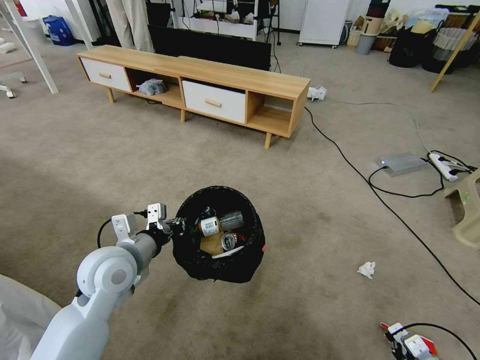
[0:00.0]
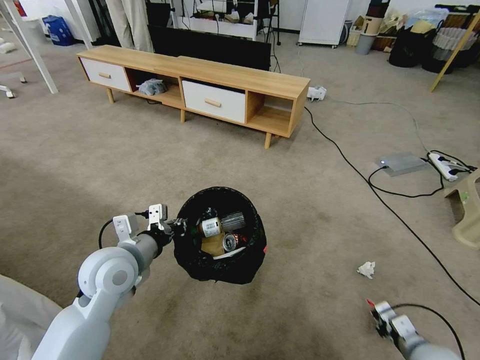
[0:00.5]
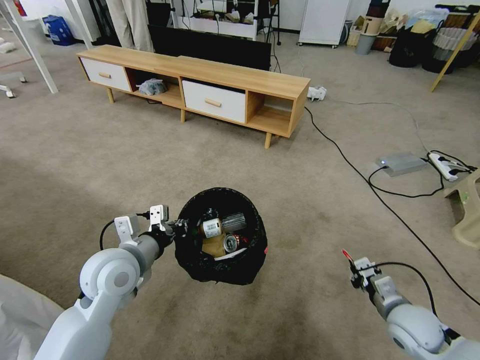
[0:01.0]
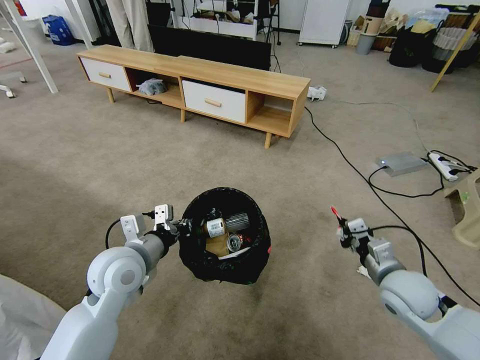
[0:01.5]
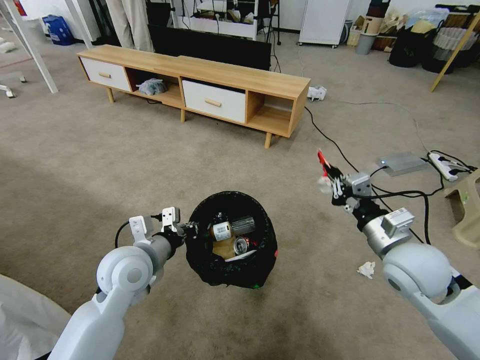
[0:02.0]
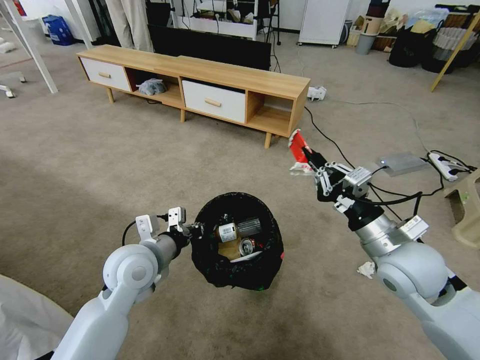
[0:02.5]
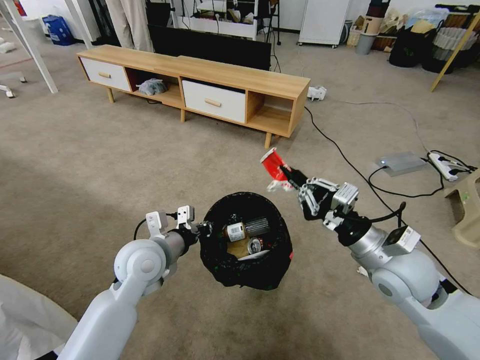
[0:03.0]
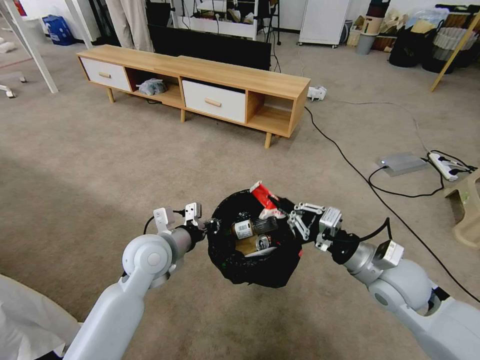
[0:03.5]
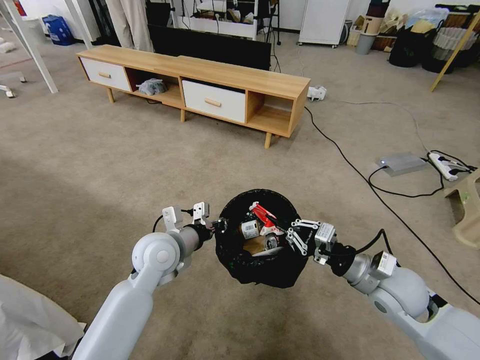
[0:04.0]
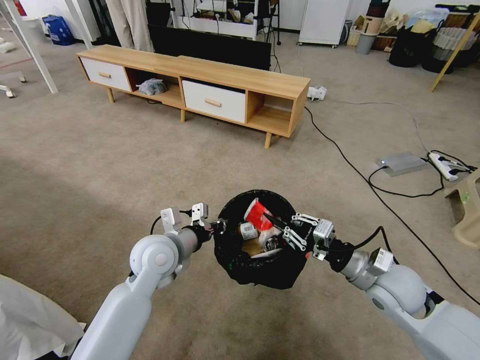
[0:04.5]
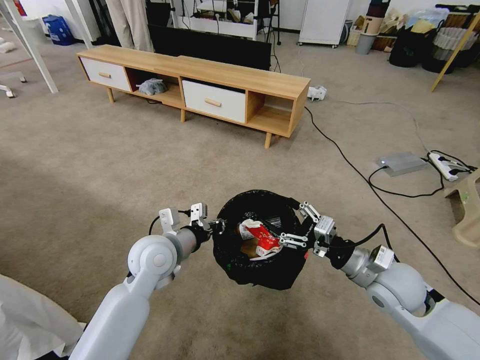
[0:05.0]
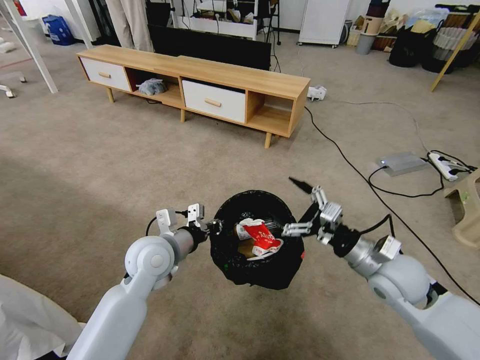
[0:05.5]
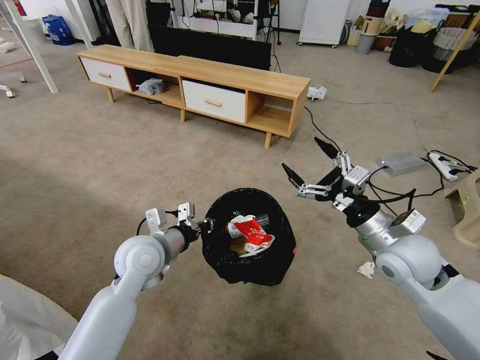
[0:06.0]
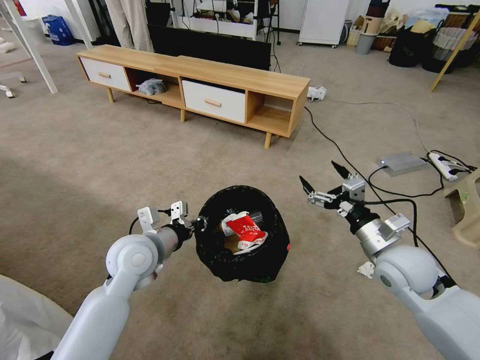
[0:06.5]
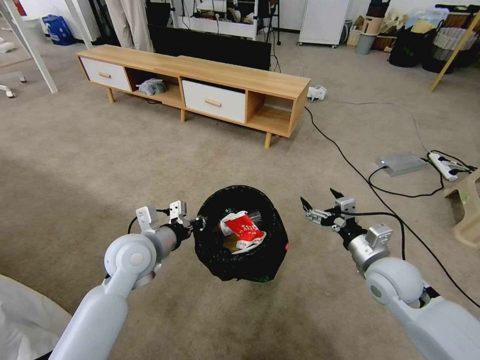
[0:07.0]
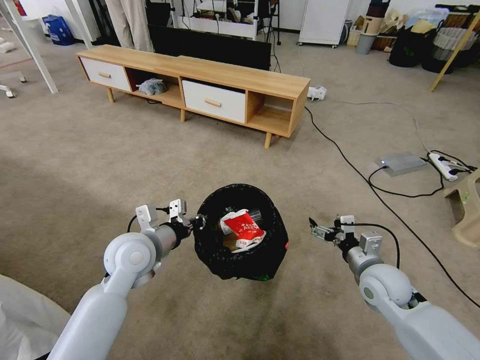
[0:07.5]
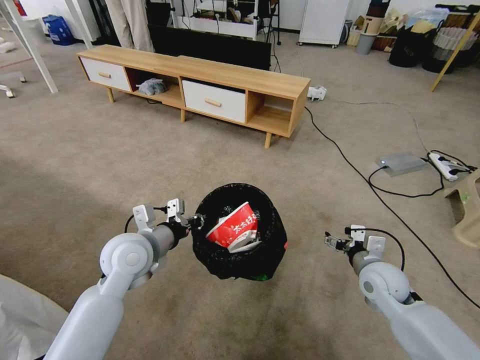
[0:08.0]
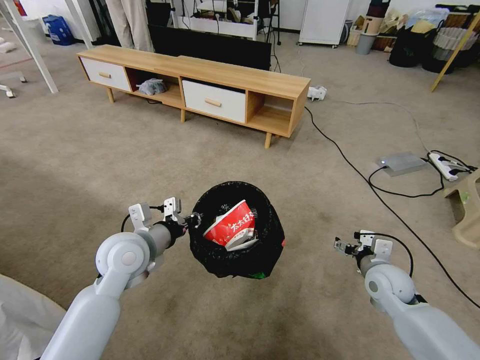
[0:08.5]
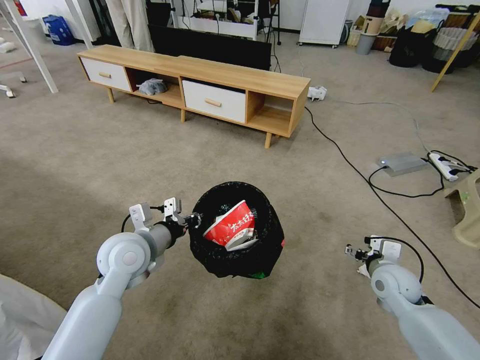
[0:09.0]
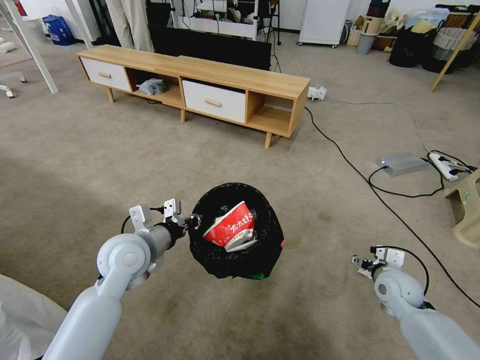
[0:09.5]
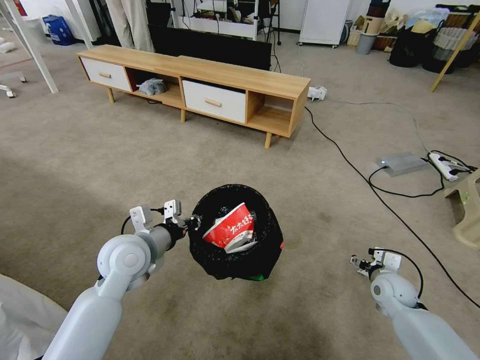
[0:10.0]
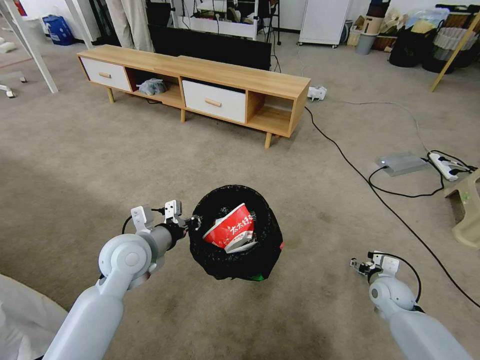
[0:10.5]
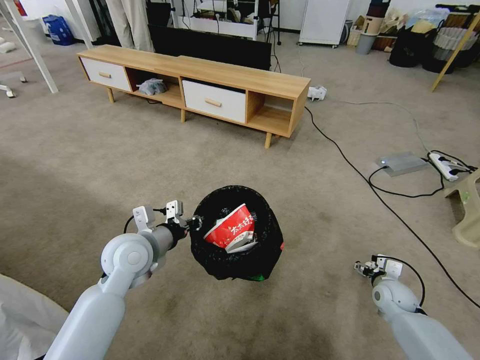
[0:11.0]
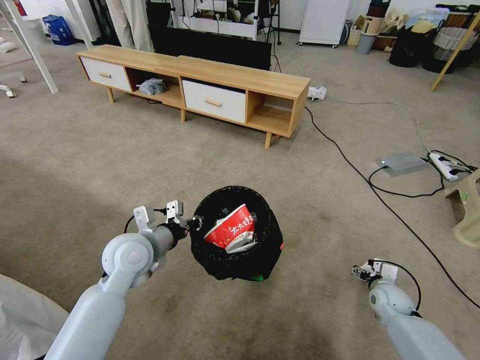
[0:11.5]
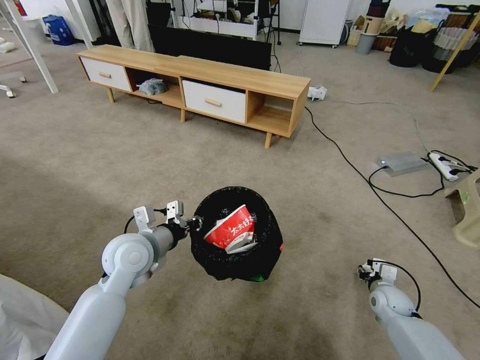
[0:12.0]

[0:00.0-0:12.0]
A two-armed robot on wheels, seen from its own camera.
Task of the whole recording: Pick up the trash bin and place the garbage on the floor into it.
0:00.0 to 0:02.0: The right gripper shifts approximately 35 cm upward, forward and to the left.
0:02.0 to 0:04.0: The right gripper travels downward by roughly 5 cm. The left gripper ends up approximately 5 cm from where it was.
0:04.0 to 0:06.0: The right gripper goes some 5 cm upward, and opens its fingers.
0:06.0 to 0:08.0: The right gripper heads downward, covering roughly 15 cm.
0:08.0 to 0:10.0: The right gripper is displaced downward and to the right by approximately 10 cm.
0:10.0 to 0:12.0: The right gripper travels downward by some 5 cm, and closes its fingers.

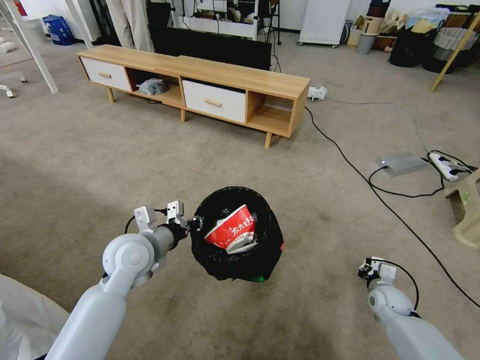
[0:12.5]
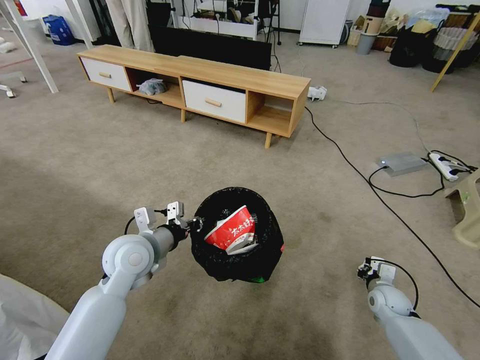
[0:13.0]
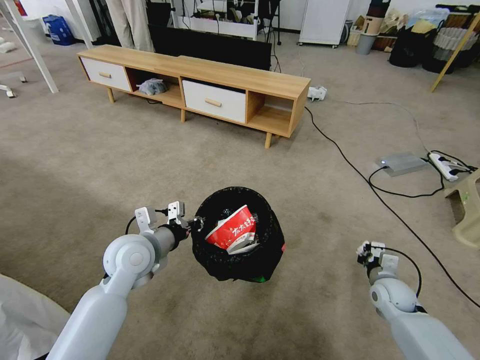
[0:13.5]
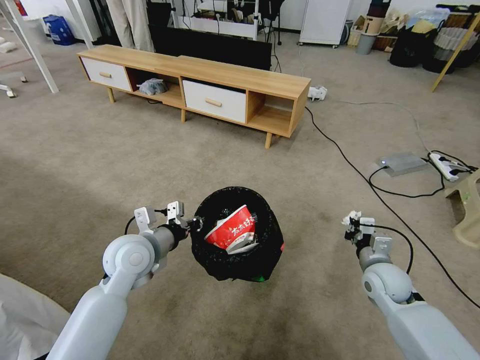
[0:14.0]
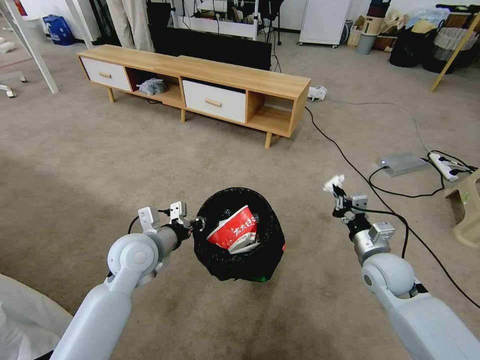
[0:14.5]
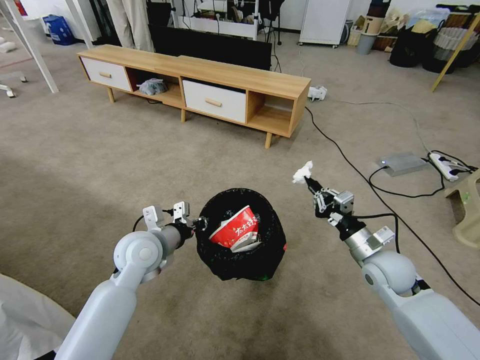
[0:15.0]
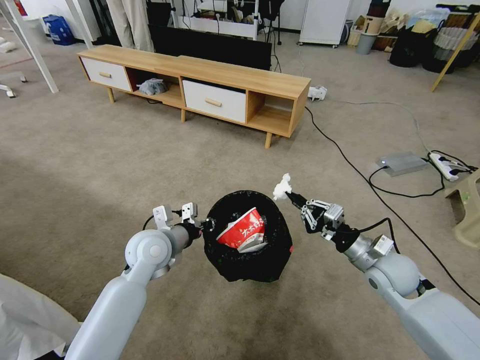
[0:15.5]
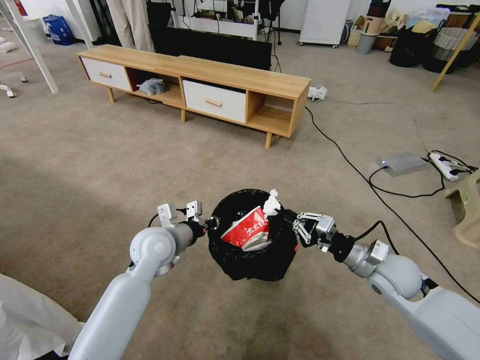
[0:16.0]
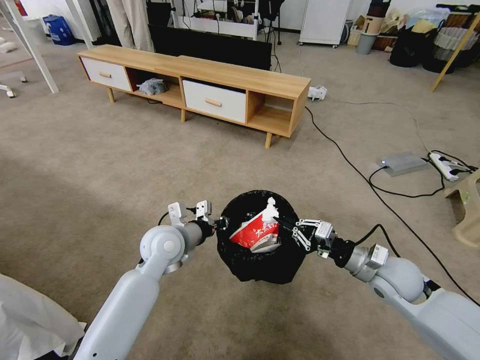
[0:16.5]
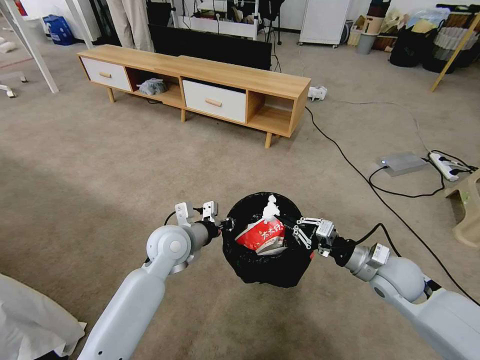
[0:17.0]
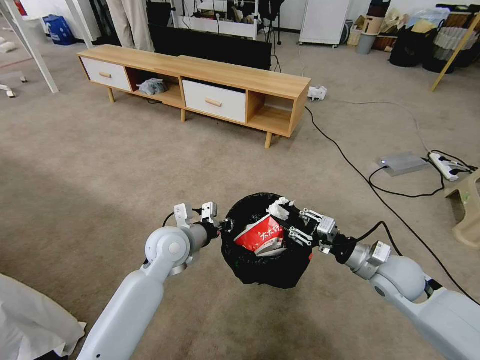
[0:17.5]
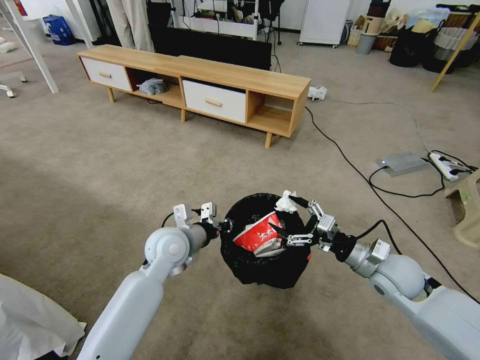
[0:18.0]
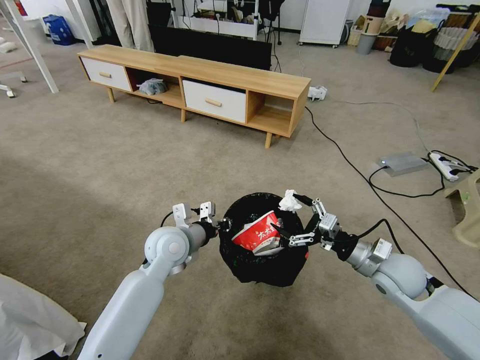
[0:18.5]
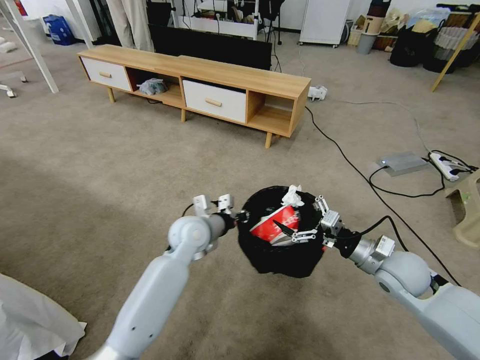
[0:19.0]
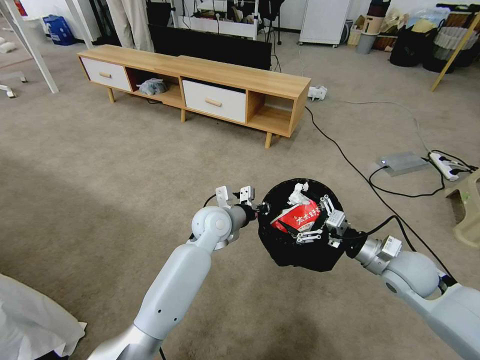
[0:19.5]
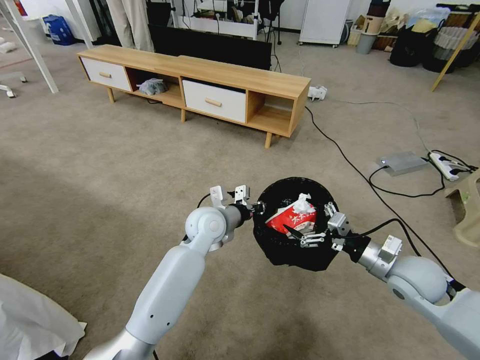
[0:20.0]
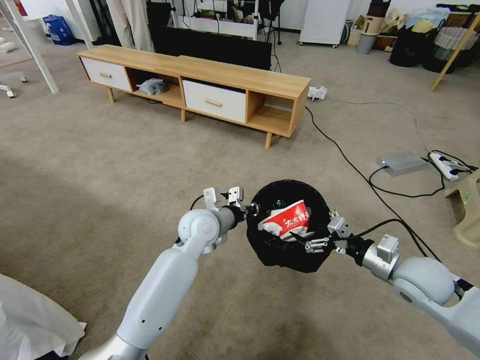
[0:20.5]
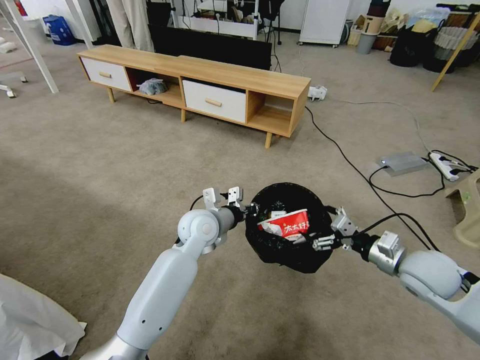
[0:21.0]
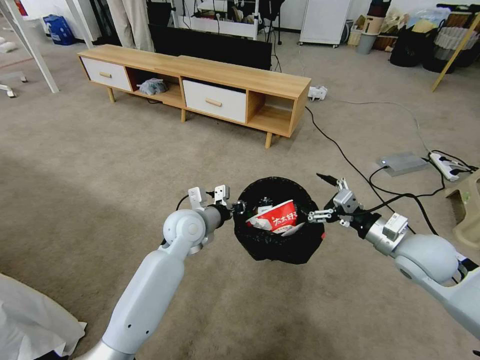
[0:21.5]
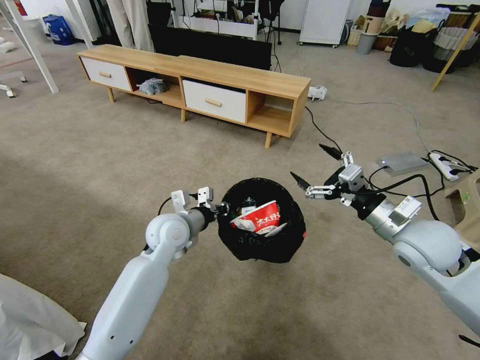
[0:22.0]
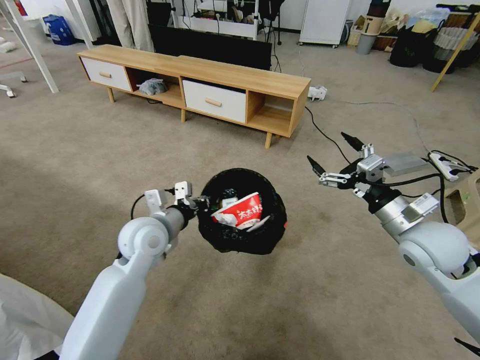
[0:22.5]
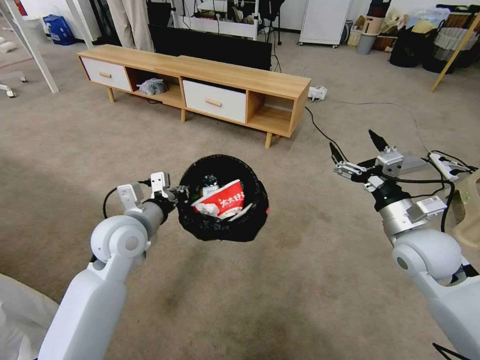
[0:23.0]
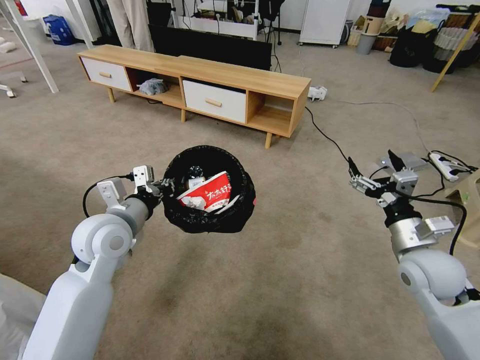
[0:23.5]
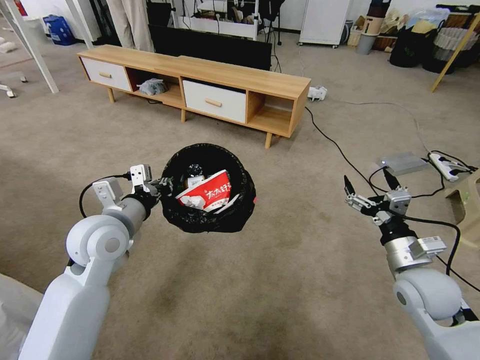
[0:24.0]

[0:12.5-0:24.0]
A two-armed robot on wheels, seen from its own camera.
Task of the whole recording: Pick up the trash bin and place the garbage on the floor into it.
0:12.5 to 0:14.5: The right gripper travels upward and to the left by about 15 cm.
0:14.5 to 0:16.5: The left gripper goes about 5 cm to the right.
0:16.5 to 0:18.5: The right gripper opens.
0:18.5 to 0:20.0: The left gripper heads to the right and forward, covering roughly 10 cm.
0:20.0 to 0:22.0: The left gripper travels to the left by about 10 cm, and opens. The right gripper moves upward, approximately 10 cm.
0:22.0 to 0:24.0: The right gripper travels downward and backward by roughly 10 cm. Meanwhile the left gripper goes approximately 15 cm to the left, upward and backward.
